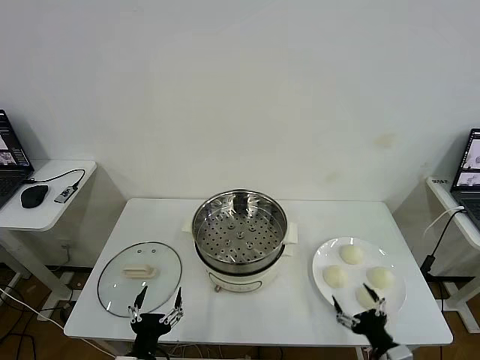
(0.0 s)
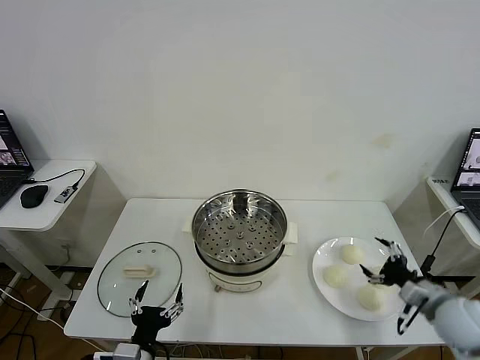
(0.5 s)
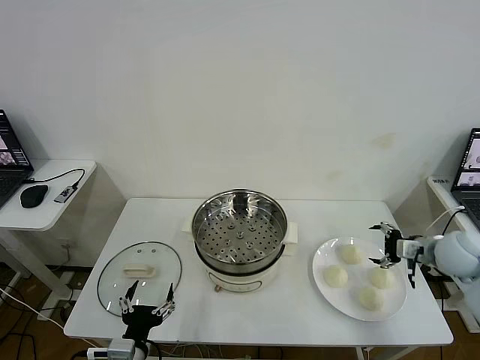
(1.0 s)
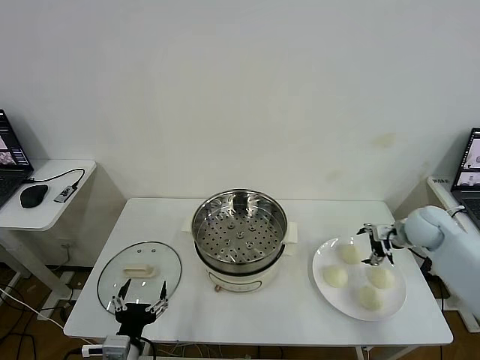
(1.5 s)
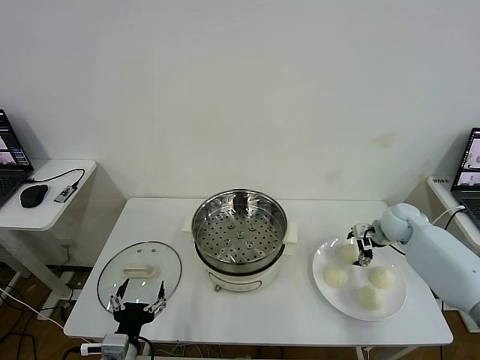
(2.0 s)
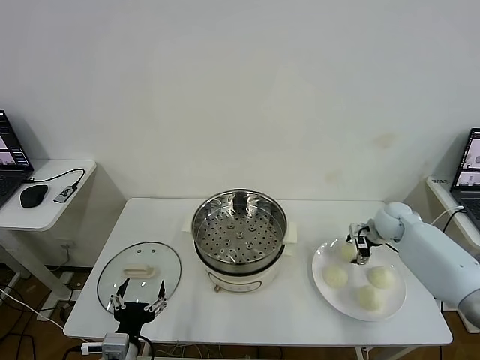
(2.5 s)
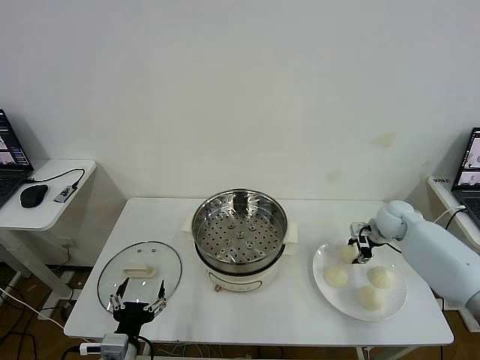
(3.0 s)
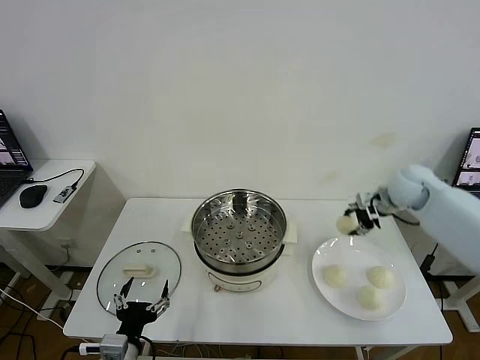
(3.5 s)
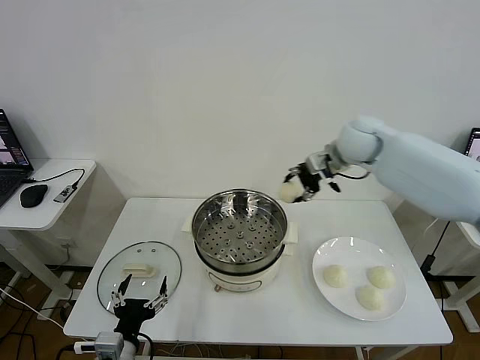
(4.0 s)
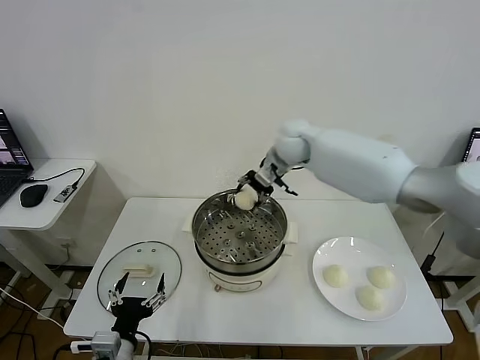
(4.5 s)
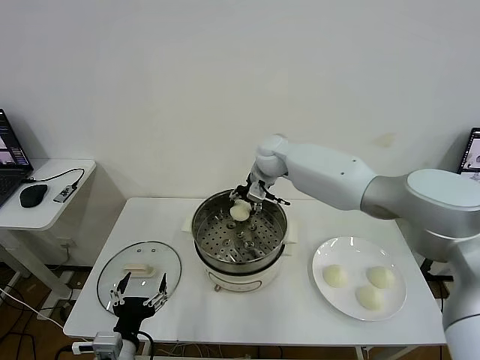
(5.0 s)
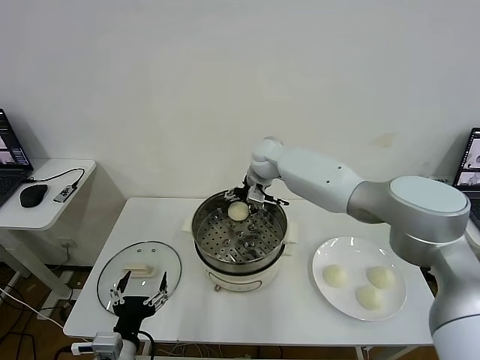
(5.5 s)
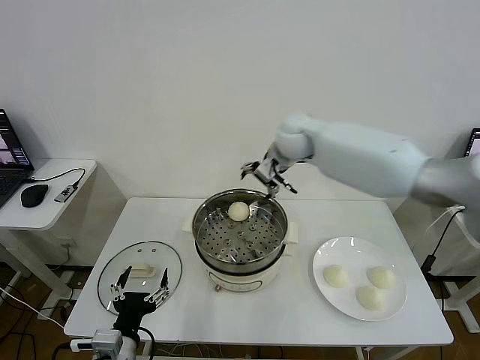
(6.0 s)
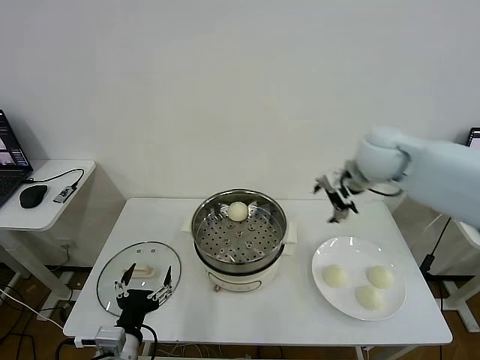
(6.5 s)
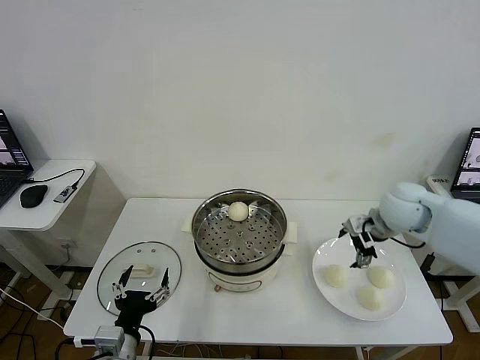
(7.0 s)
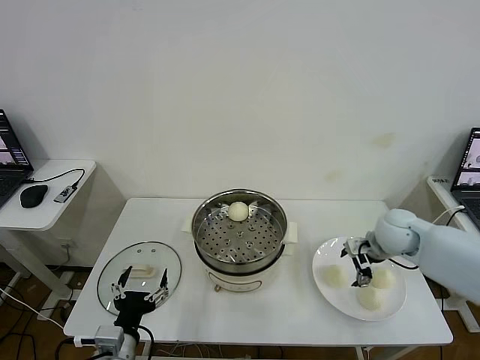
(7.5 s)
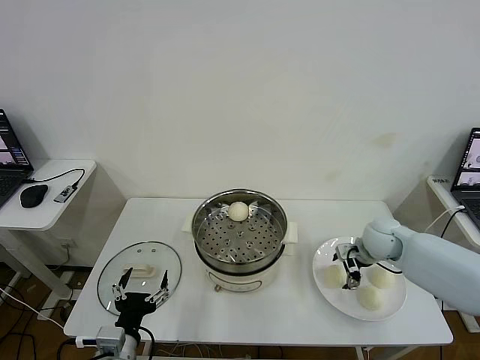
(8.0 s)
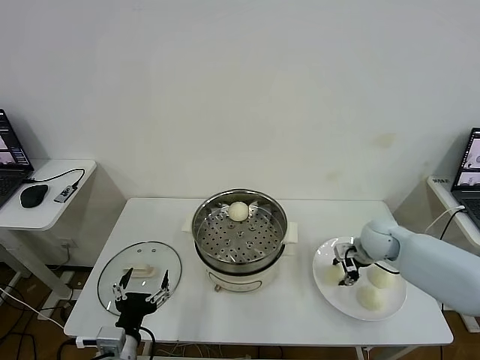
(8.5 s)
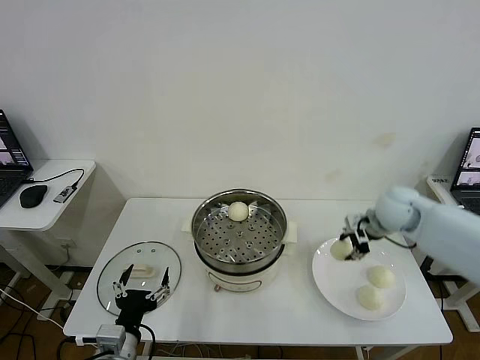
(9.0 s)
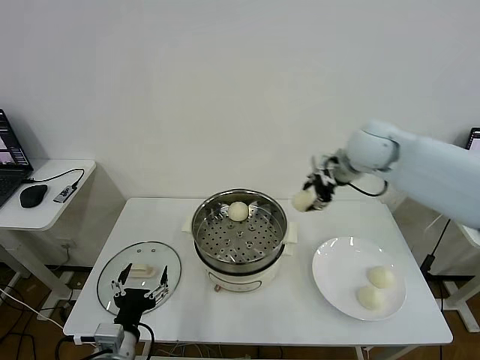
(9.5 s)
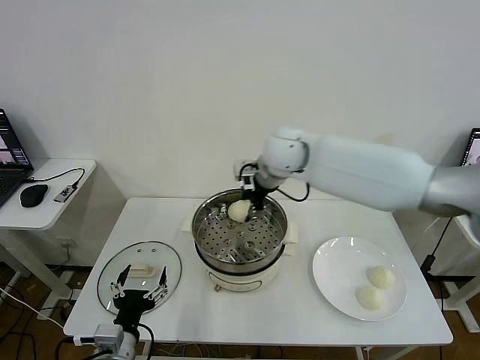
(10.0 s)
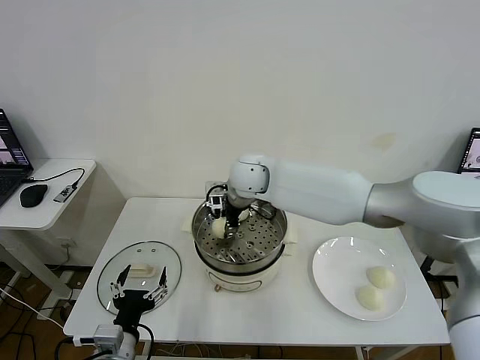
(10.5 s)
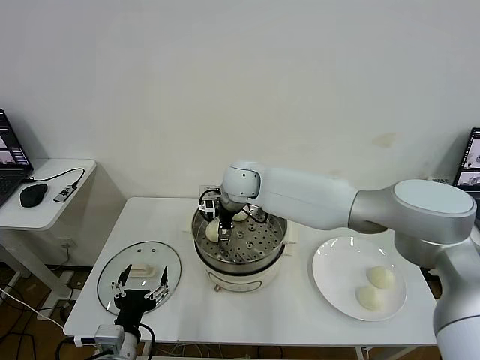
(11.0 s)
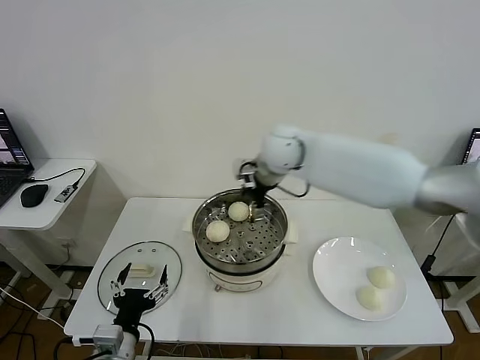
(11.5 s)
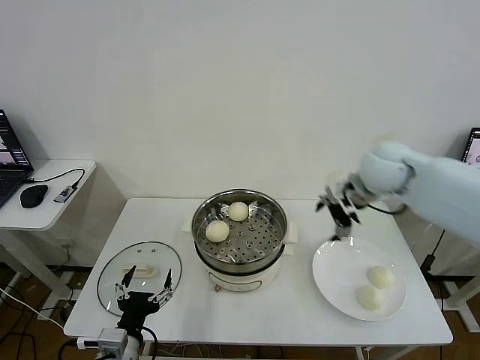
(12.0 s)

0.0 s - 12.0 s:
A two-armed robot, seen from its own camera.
Task of the whole recording: take steamed baozi put them in steamer then cover it.
Step, 0.0 s - 2.5 s: Grasp the baozi in the plate with right gripper.
Step, 3.0 s - 5.5 s: Place the baozi on the steamer with right gripper.
Step, 6.0 s - 8.5 s: Grasp the baozi in the plate with right gripper.
Step, 9.0 s - 11.0 s: Place the baozi on the steamer with right gripper.
2.0 s - 4.0 s: The right gripper heads upward and to the left, covering some 25 cm, and closes up.
4.0 s - 6.0 s: The right gripper moves to the left, about 10 cm, and opens up.
6.0 s - 8.0 s: The right gripper travels to the right, downward and backward by roughly 30 cm.
8.0 s - 10.0 s: The right gripper shifts some 35 cm to the left and upward, and closes its fingers.
10.0 s - 12.0 s: The right gripper travels to the right by some 20 cm, and opens its fingers.

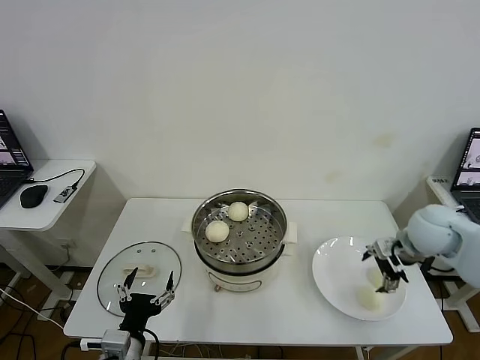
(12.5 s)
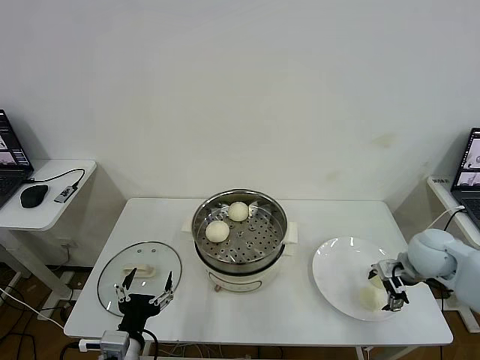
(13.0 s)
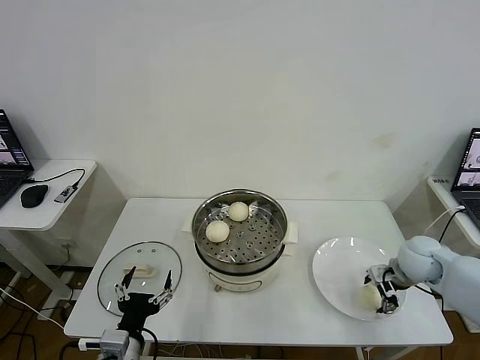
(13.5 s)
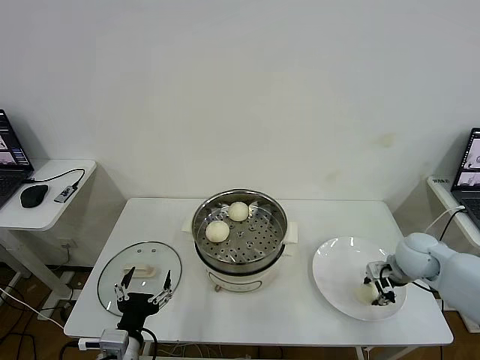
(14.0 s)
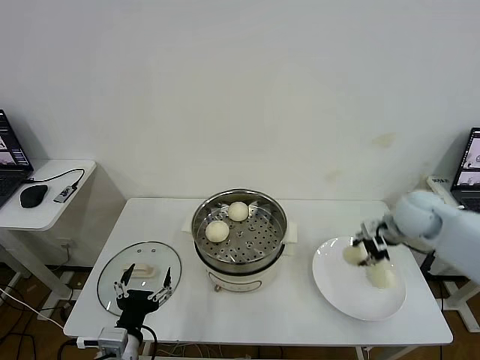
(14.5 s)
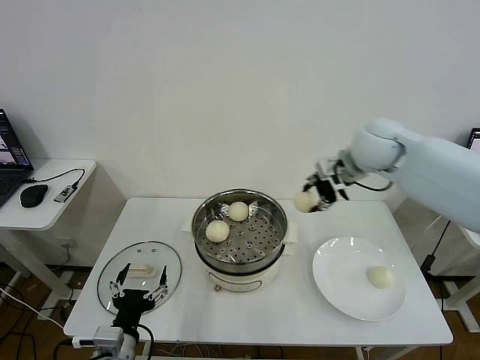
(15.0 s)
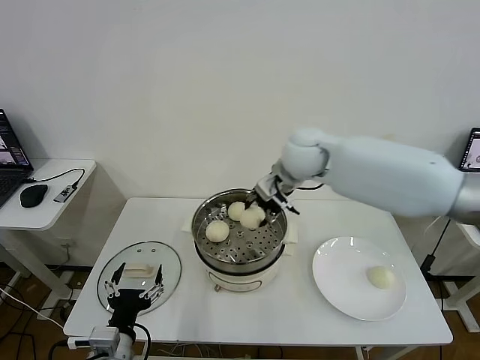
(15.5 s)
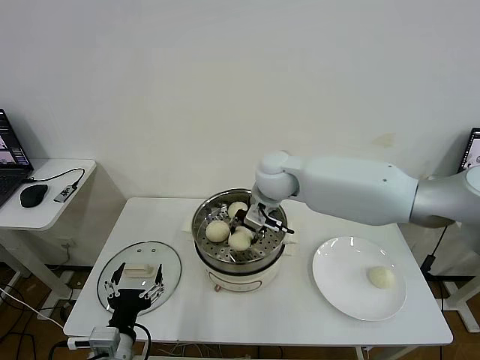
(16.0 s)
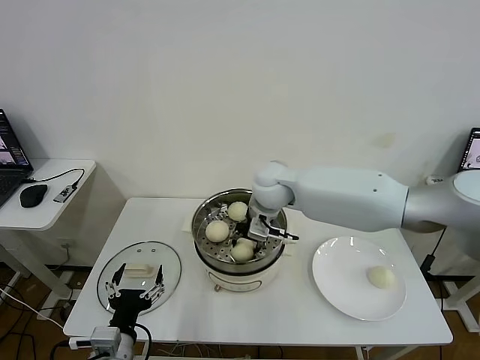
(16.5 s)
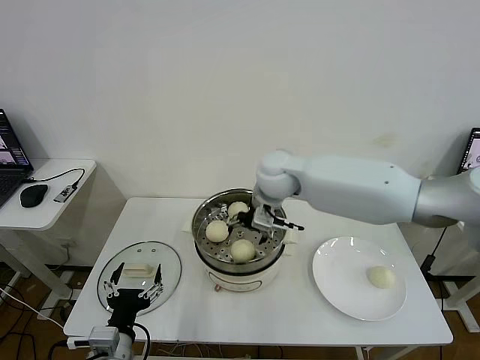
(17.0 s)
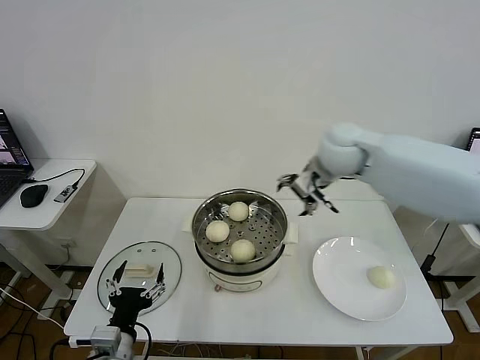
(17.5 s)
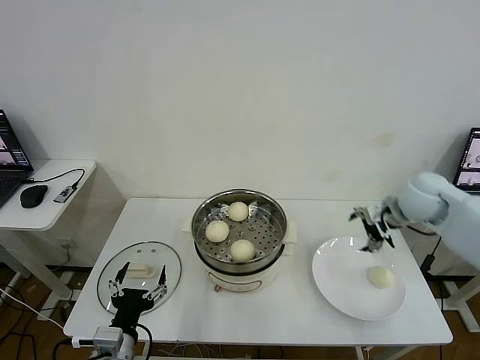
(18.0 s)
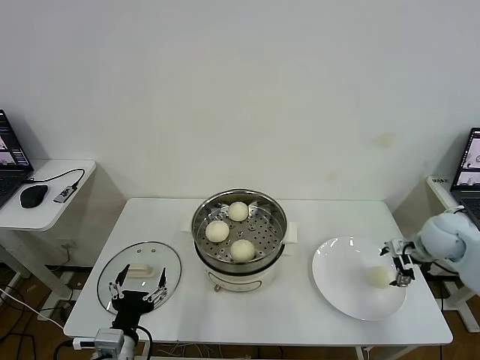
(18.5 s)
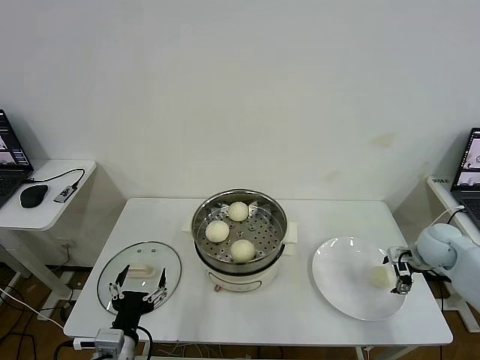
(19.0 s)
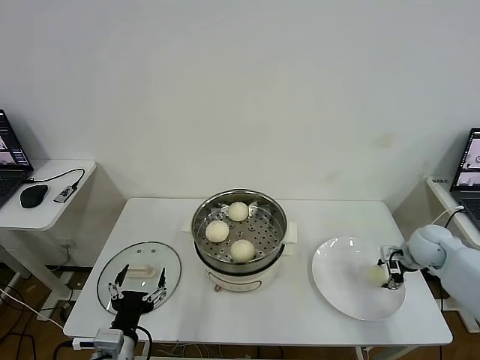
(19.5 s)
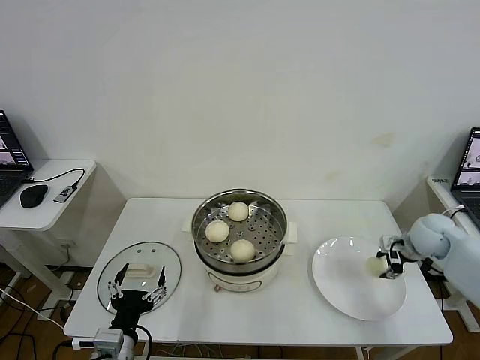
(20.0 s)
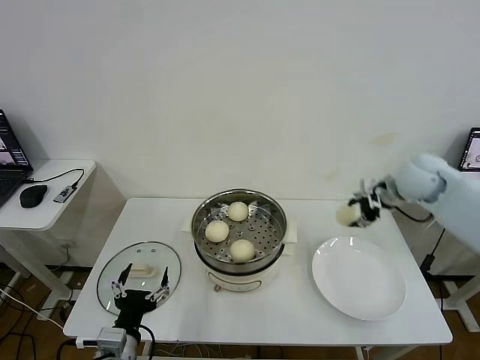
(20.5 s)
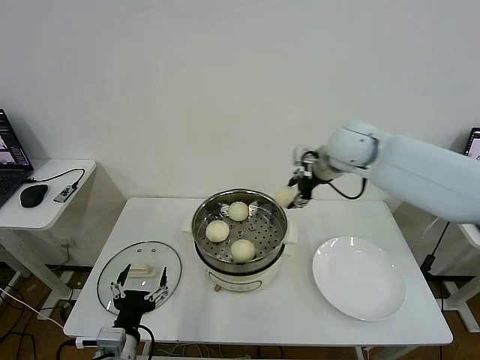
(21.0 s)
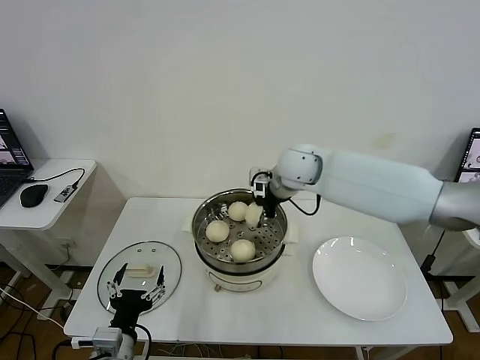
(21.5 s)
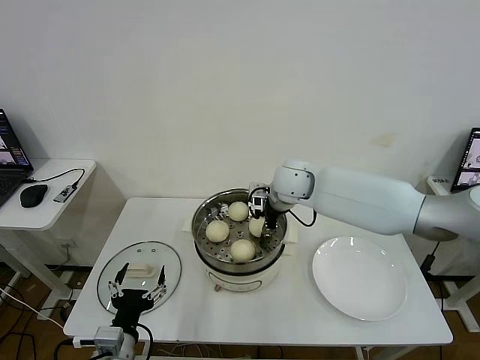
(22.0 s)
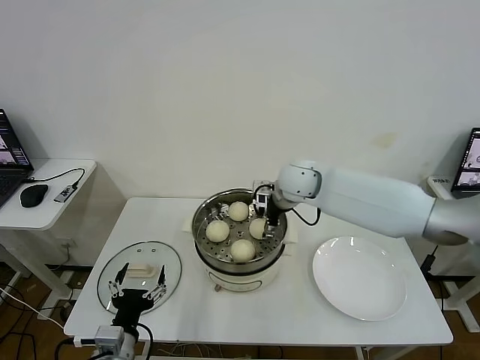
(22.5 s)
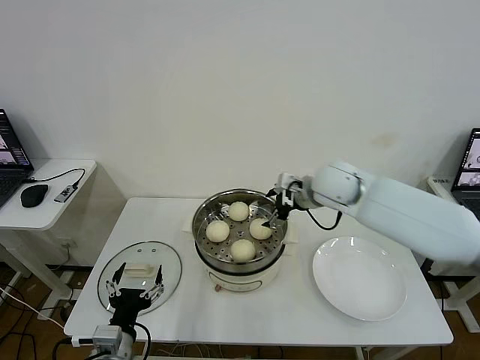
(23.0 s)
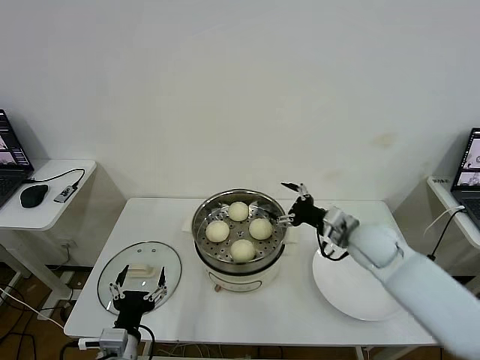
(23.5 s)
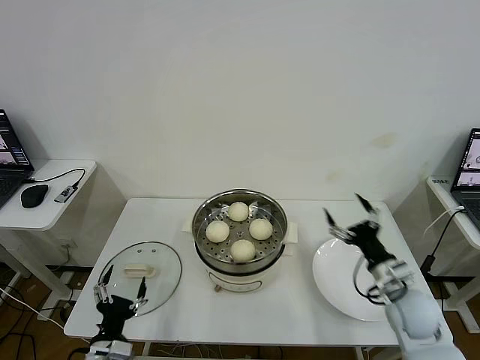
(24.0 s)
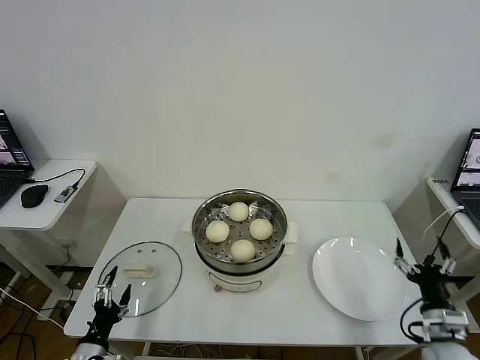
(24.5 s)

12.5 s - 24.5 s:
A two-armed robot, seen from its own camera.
Task of the whole recording: take steamed baozi put them in steamer then cover it.
Step, 14.5 s - 16.5 s: Place the baozi on the steamer with right gripper.
Step, 17.0 s - 19.5 s: Grasp the baozi in the plate with right gripper.
Step, 20.0 s - 22.5 s: Place the baozi on the steamer with right gripper.
12.5 s - 14.5 s: The right gripper goes downward and returns, approximately 10 cm each way, and closes its fingers.
14.5 s - 16.5 s: The right gripper travels to the left by some 30 cm.
16.5 s - 18.5 s: The right gripper shifts approximately 40 cm to the right, and opens up.
18.5 s - 20.5 s: The right gripper shifts roughly 15 cm upward, to the left and forward, and closes up.
20.5 s - 22.5 s: The right gripper heads to the left, covering some 25 cm, and opens up.
22.5 s - 24.5 s: The left gripper is displaced to the left and downward by roughly 15 cm. The right gripper goes about 50 cm backward, to the right and downward.

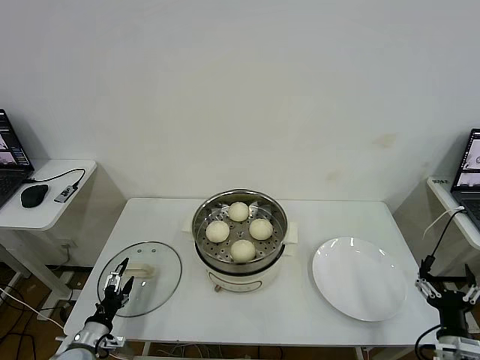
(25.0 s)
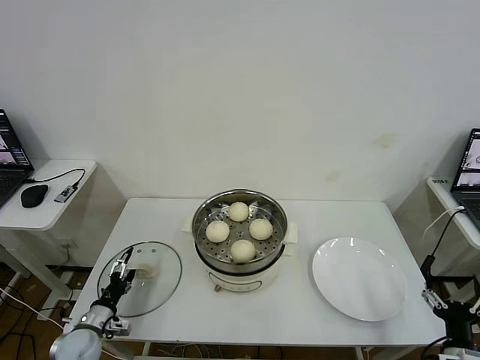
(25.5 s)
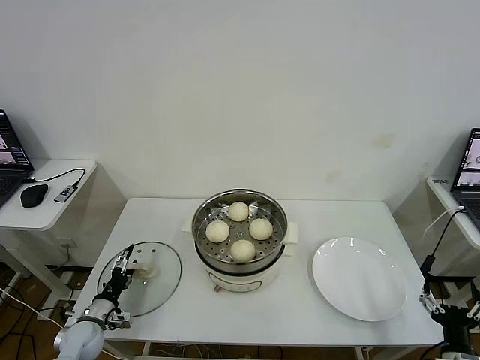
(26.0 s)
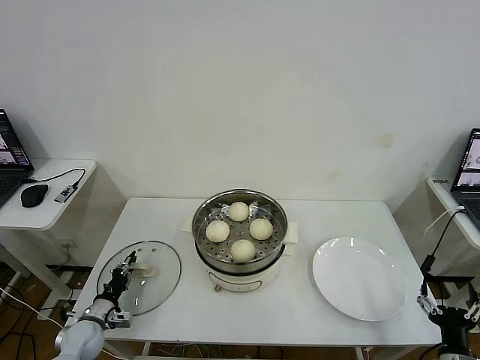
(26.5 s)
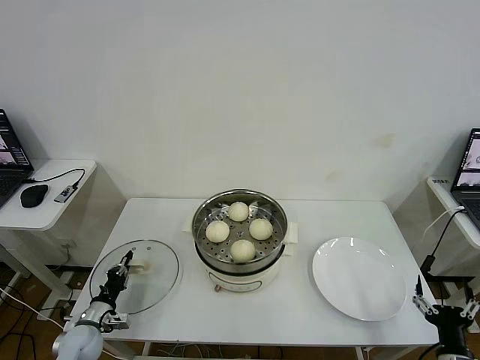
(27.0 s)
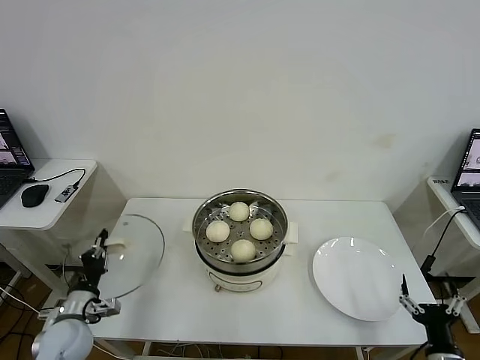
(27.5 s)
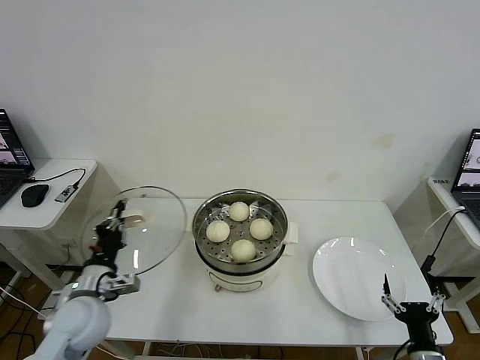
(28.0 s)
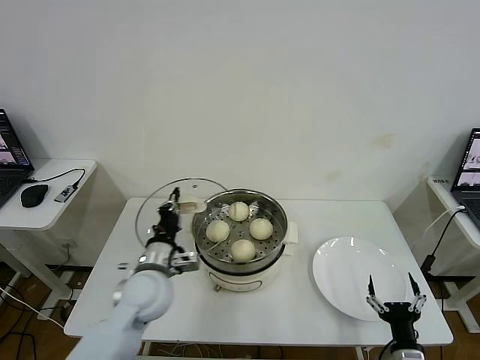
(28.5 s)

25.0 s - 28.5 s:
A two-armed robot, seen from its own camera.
Task of the whole recording: take steamed baozi put them in steamer then cover it.
25.0 s - 27.0 s: The left gripper moves forward, approximately 5 cm, and closes up.
27.0 s - 28.5 s: The right gripper moves to the left, approximately 5 cm. Meanwhile the left gripper travels upward and to the right by approximately 30 cm.
